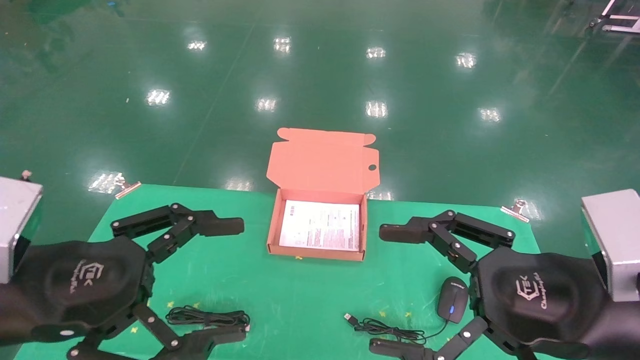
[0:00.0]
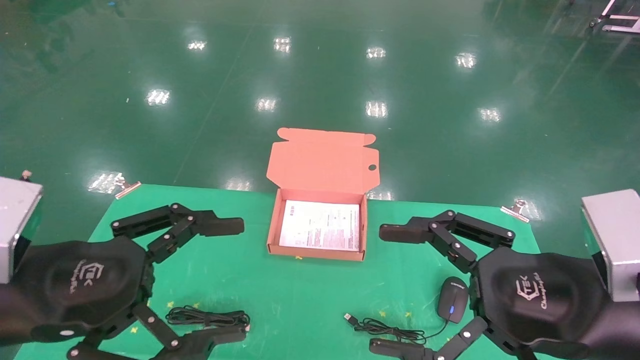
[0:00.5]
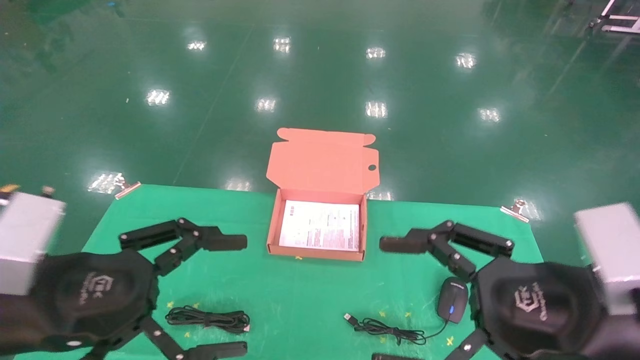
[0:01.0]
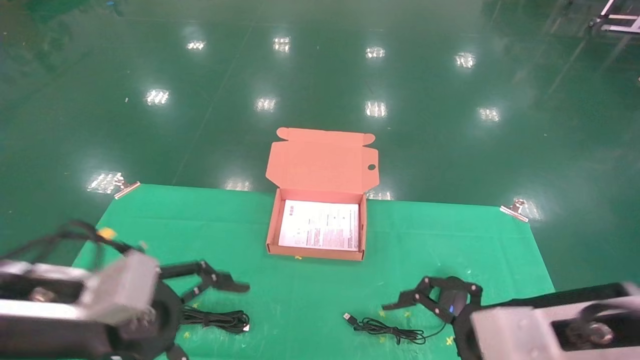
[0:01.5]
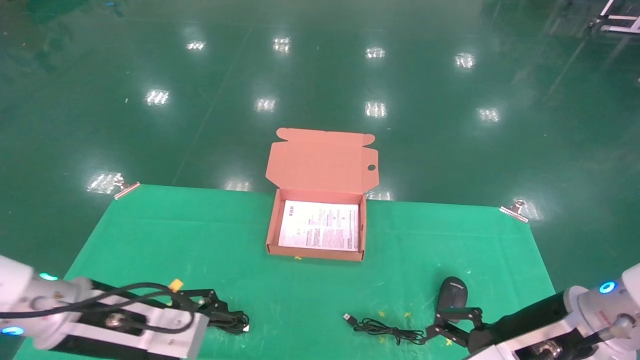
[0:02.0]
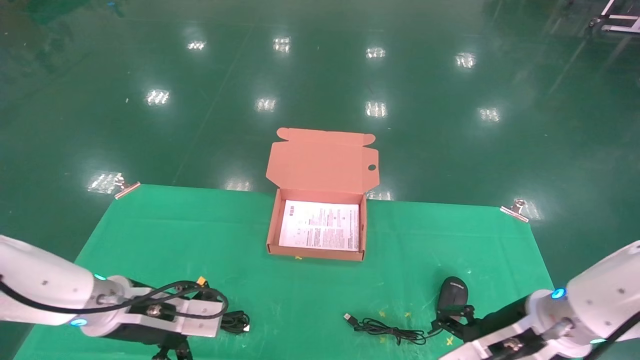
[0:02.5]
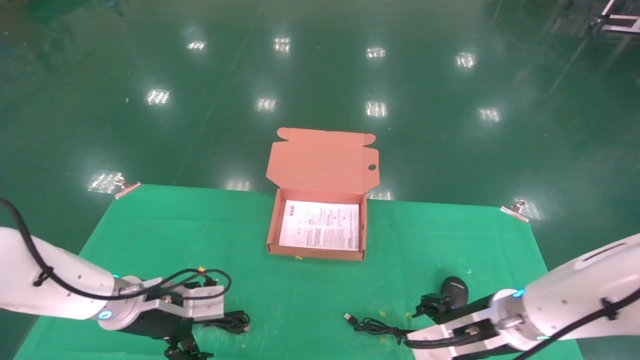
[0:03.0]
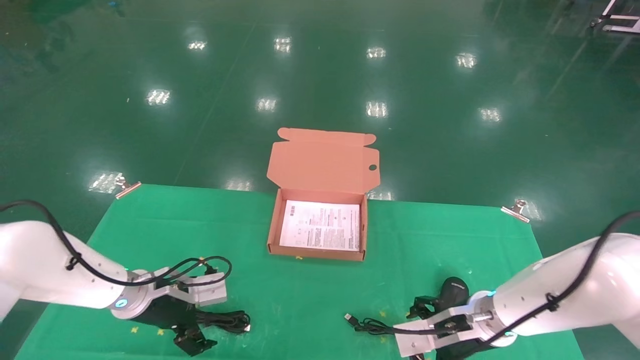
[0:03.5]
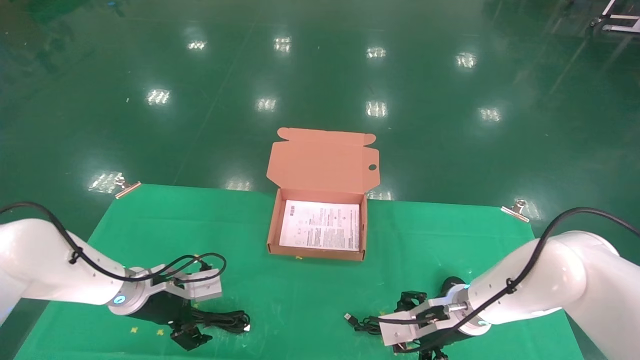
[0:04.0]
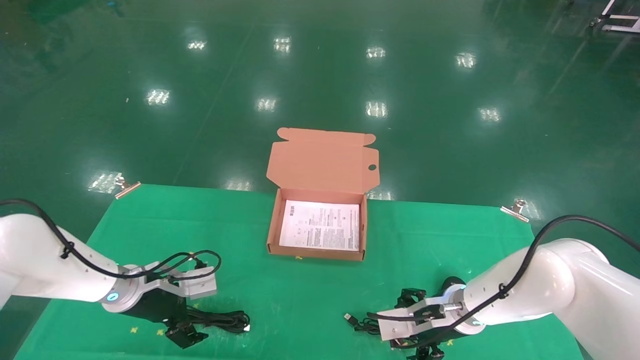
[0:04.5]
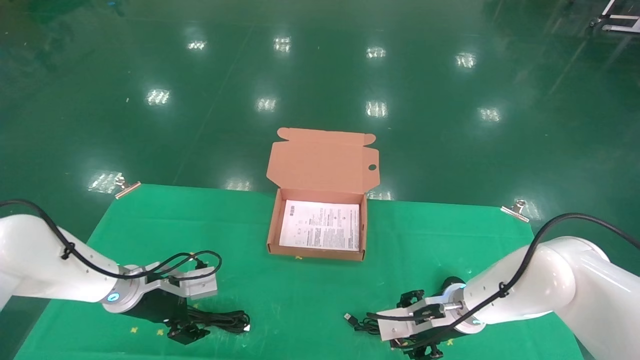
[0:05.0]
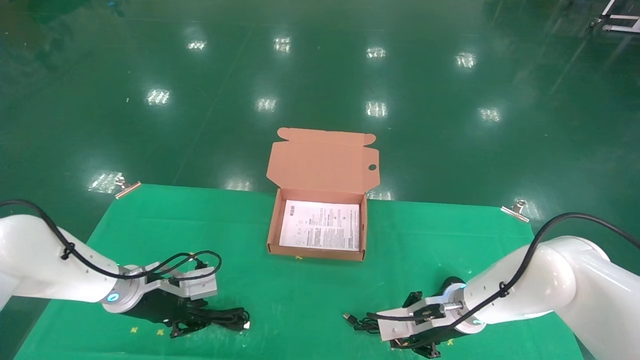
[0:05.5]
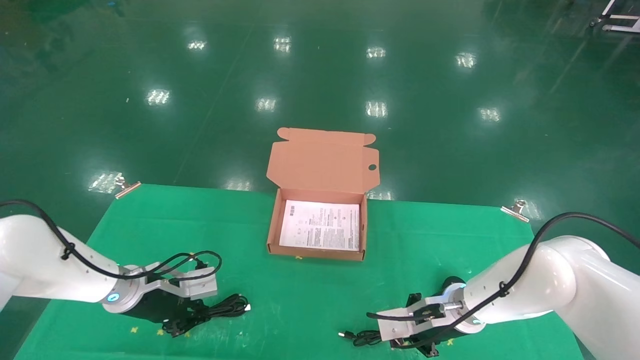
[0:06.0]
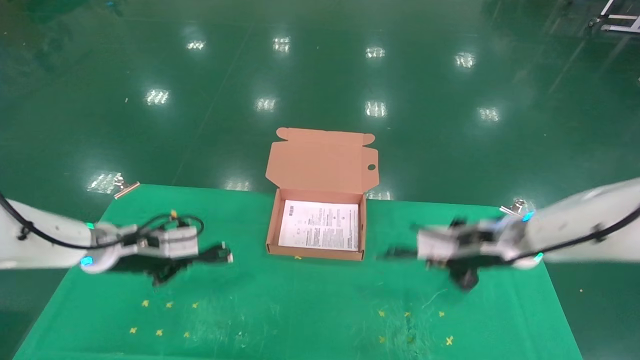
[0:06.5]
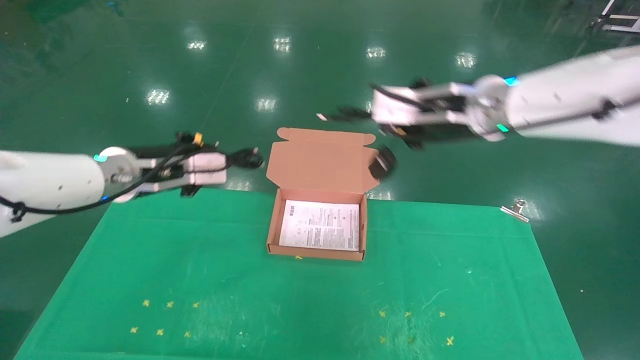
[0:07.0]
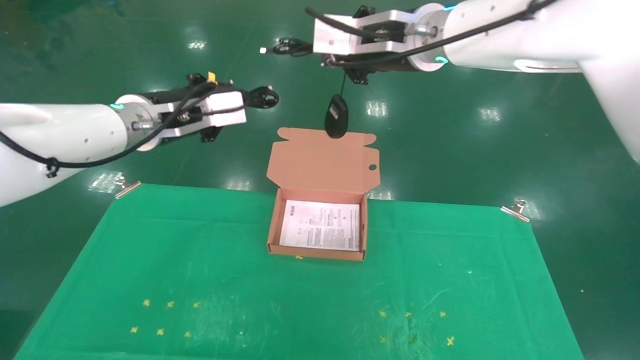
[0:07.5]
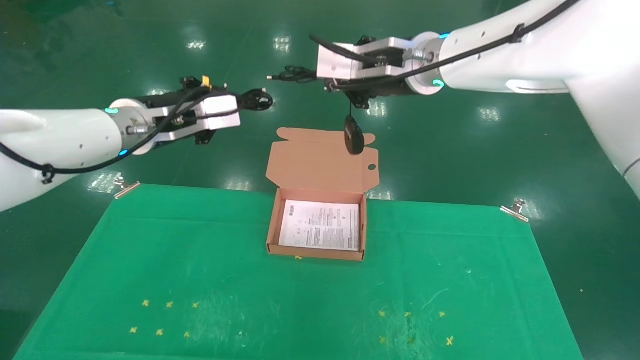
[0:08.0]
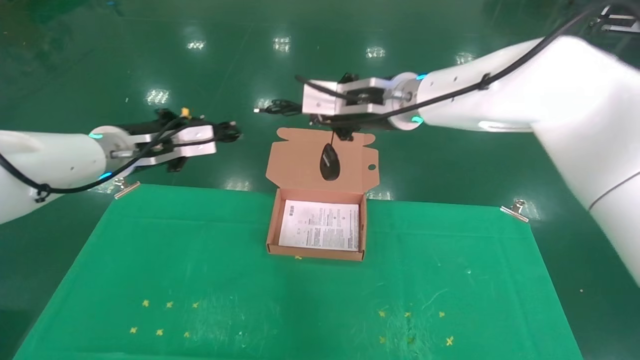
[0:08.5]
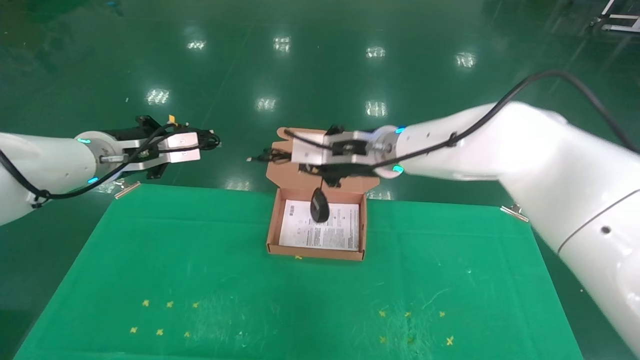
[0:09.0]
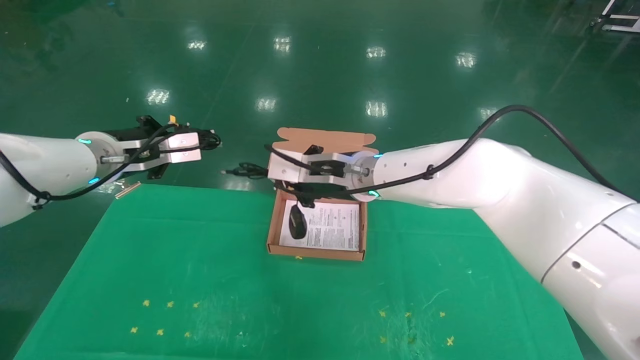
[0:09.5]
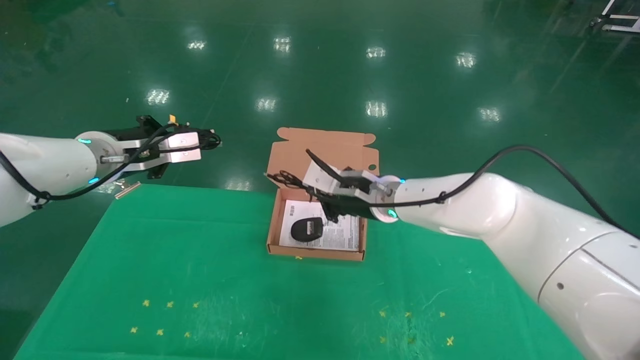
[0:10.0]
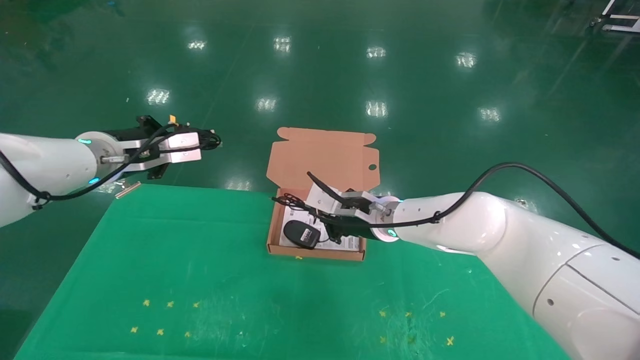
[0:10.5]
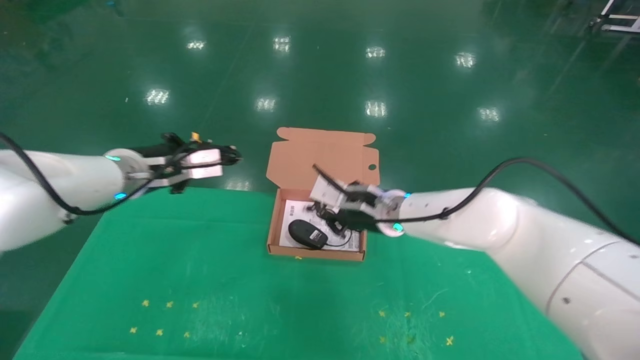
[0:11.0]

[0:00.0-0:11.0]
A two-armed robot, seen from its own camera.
Task of the whole recording: grasp data cable left put into box grasp mouse right put into box.
Step, 0:01.5 to 0:07.0: Grab and pick up both the mouse and power cord from the accessory packaging area at the same time.
0:00.0 to 0:02.0: The two grippers go about 10 cm forward and downward.
0:02.0 to 0:03.5: The grippers both shift forward and downward by some 15 cm.
0:03.5 to 0:05.5: The right gripper closes up; the left gripper closes.
0:05.5 to 0:07.5: The two grippers go approximately 30 cm upward. The right gripper closes up, while the left gripper closes up.
0:07.5 to 0:09.0: The left gripper shifts about 5 cm to the left; the right gripper is displaced downward by approximately 15 cm.
0:09.0 to 0:11.0: The right gripper goes roughly 10 cm downward. The left gripper shifts by about 5 cm.

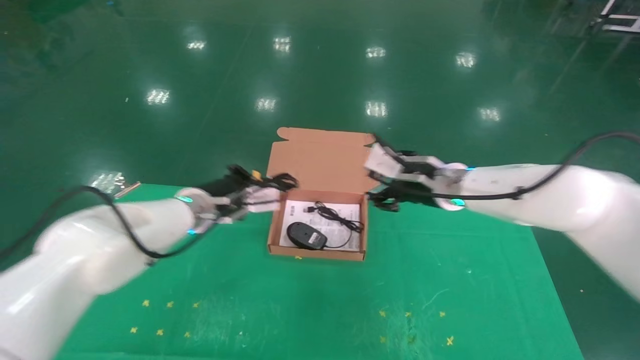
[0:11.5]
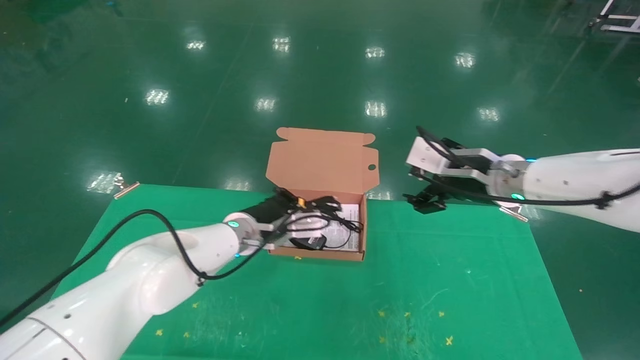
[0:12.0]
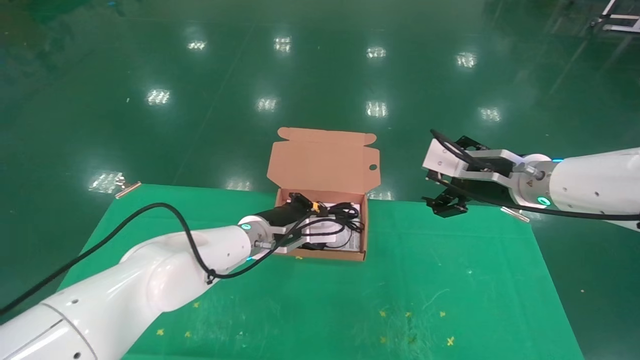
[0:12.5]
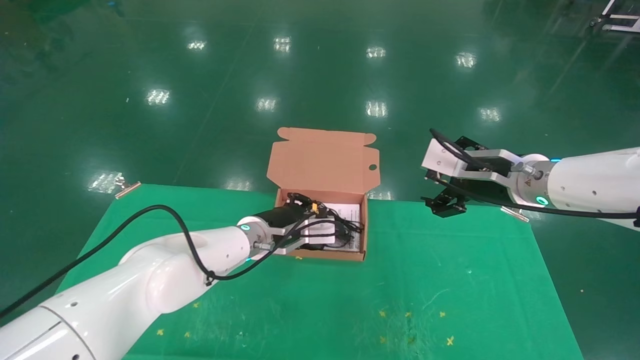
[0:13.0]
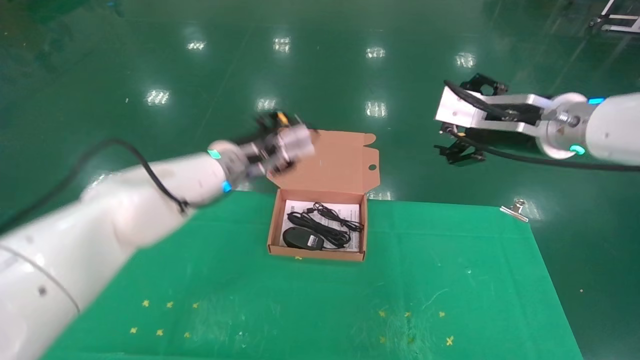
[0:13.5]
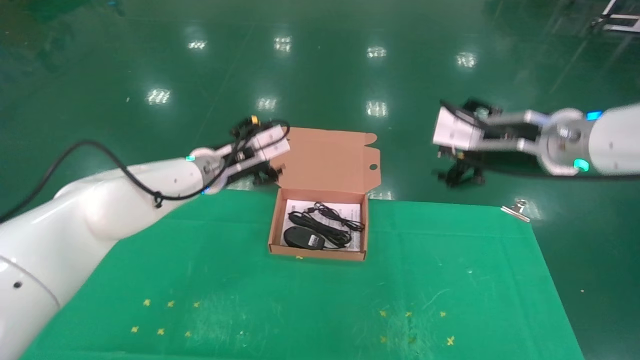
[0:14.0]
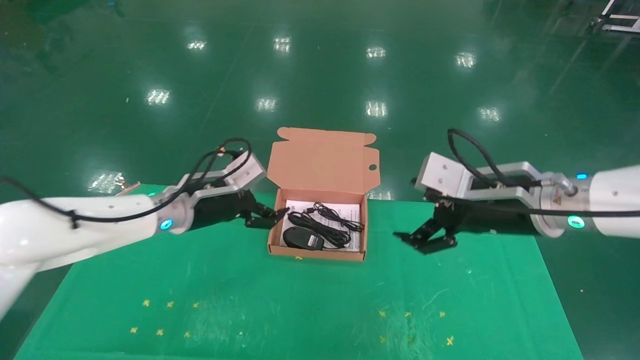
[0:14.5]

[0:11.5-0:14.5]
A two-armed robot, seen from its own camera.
Task of the whole recording: grasp data cable left put into box grasp mouse right put into box.
Step, 0:11.5 to 0:13.5: Place the mouse and power cord into the box.
0:11.5 to 0:13.0: The left gripper goes about 10 cm to the right; the right gripper moves to the right and backward, some 10 cm, and opens.
0:13.0 to 0:14.5: The left gripper travels to the left and upward by roughly 10 cm, and opens its fingers; the right gripper heads backward, covering roughly 5 cm.
